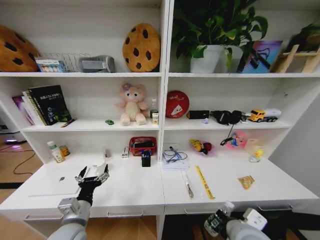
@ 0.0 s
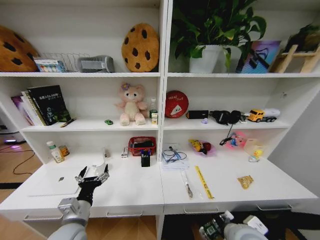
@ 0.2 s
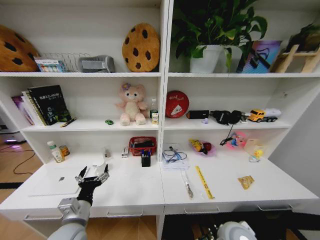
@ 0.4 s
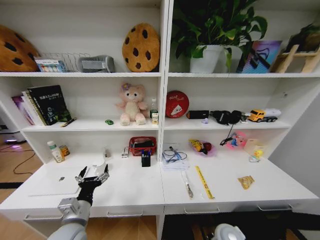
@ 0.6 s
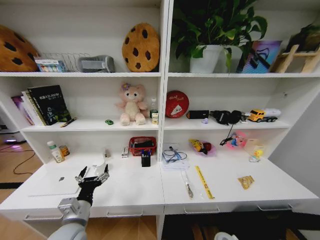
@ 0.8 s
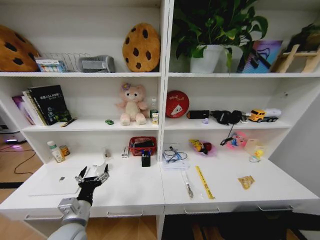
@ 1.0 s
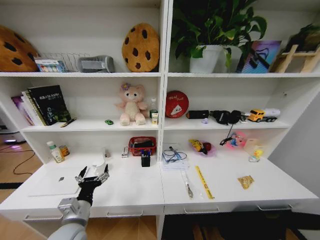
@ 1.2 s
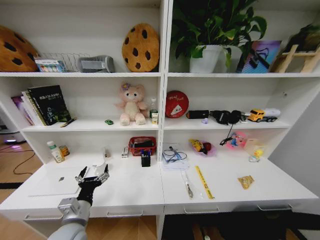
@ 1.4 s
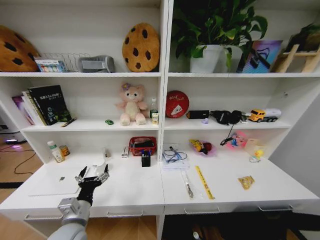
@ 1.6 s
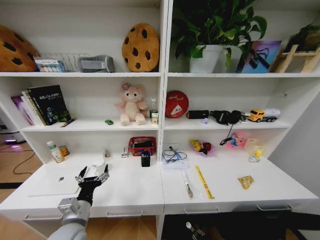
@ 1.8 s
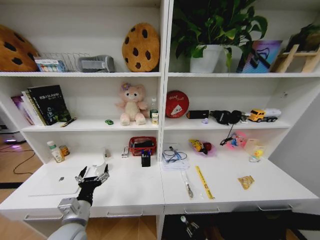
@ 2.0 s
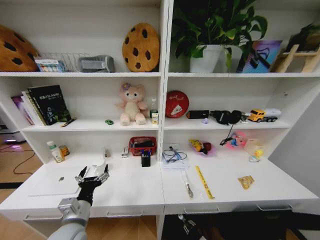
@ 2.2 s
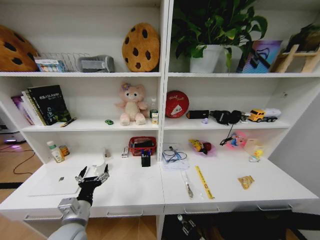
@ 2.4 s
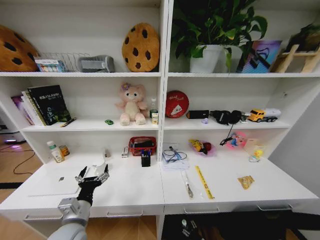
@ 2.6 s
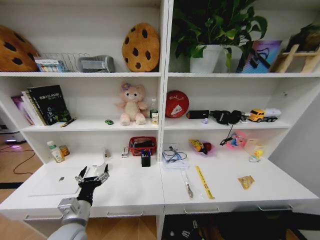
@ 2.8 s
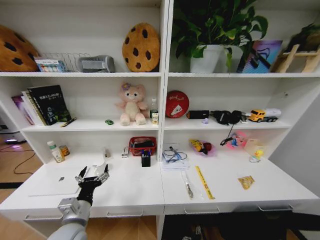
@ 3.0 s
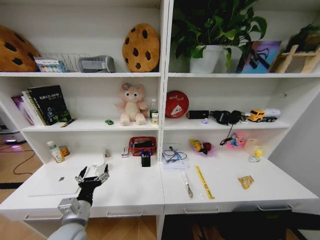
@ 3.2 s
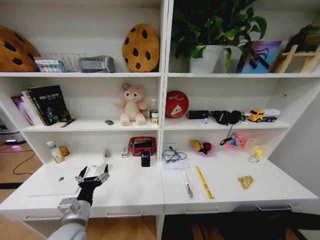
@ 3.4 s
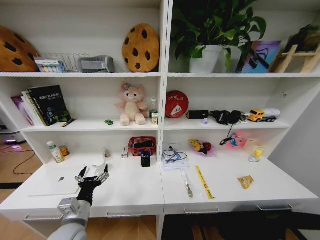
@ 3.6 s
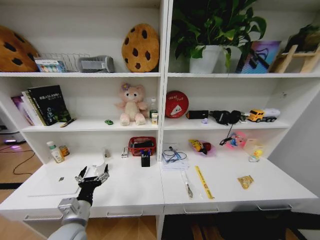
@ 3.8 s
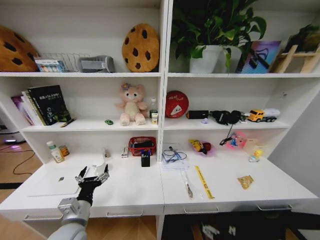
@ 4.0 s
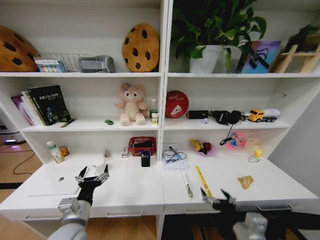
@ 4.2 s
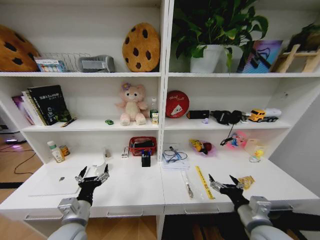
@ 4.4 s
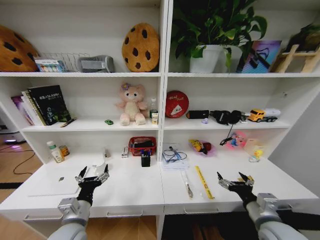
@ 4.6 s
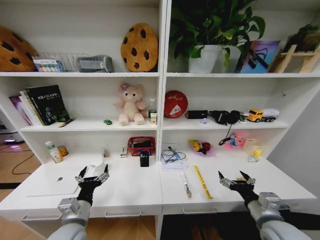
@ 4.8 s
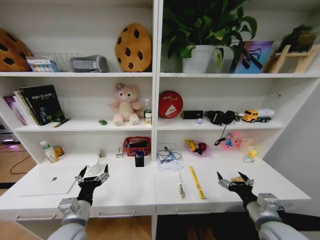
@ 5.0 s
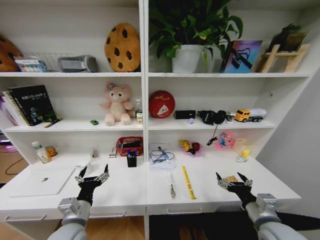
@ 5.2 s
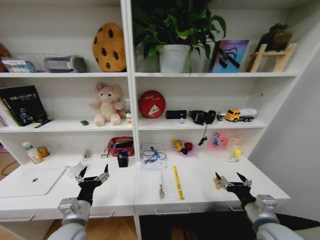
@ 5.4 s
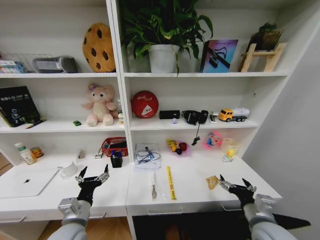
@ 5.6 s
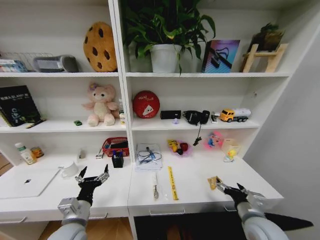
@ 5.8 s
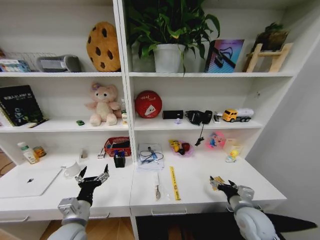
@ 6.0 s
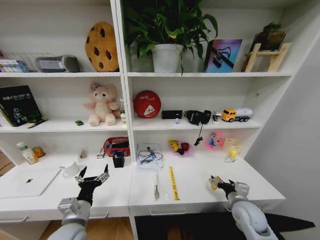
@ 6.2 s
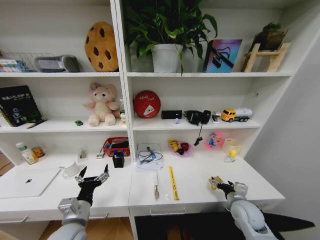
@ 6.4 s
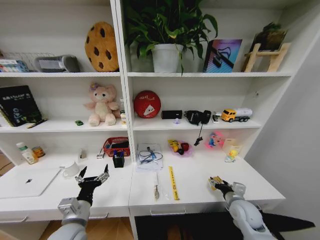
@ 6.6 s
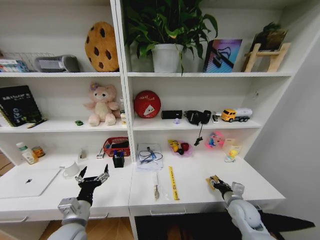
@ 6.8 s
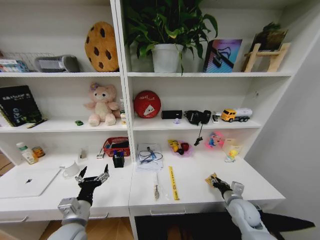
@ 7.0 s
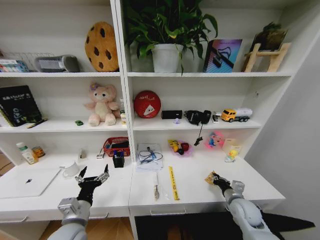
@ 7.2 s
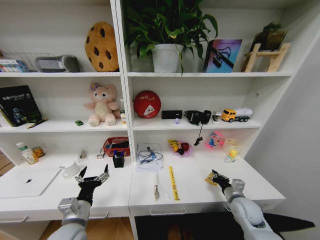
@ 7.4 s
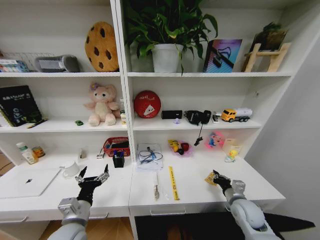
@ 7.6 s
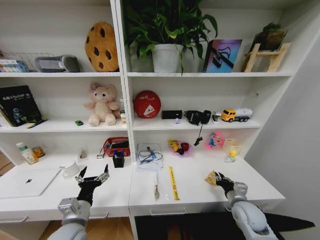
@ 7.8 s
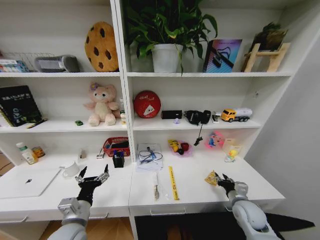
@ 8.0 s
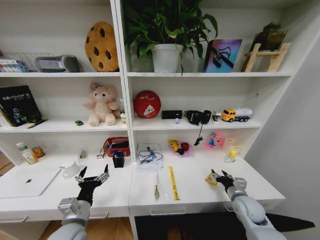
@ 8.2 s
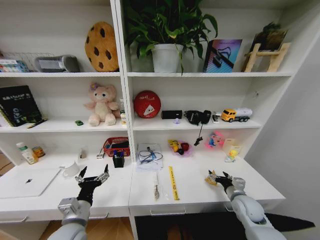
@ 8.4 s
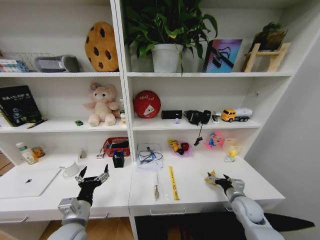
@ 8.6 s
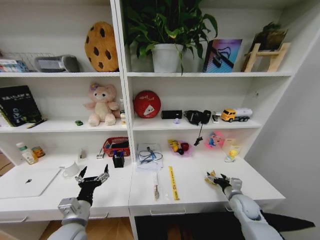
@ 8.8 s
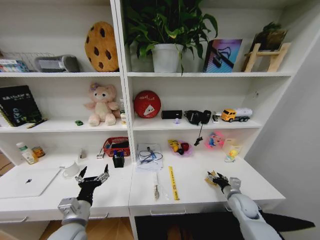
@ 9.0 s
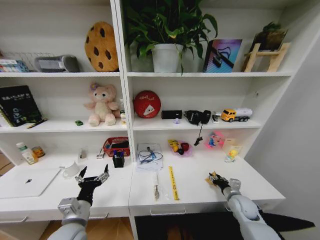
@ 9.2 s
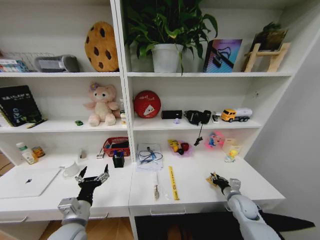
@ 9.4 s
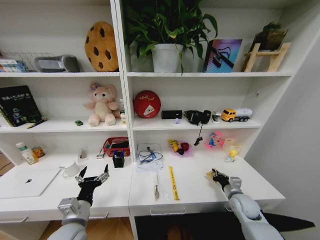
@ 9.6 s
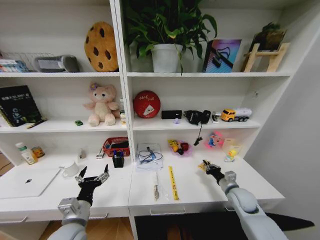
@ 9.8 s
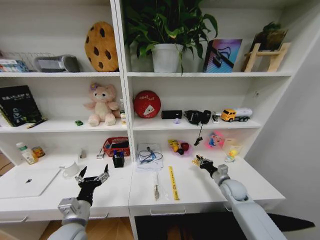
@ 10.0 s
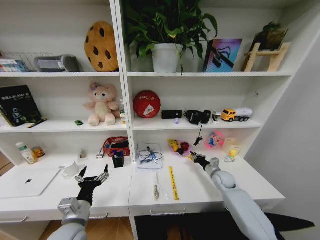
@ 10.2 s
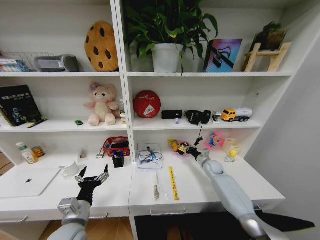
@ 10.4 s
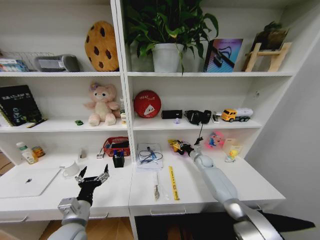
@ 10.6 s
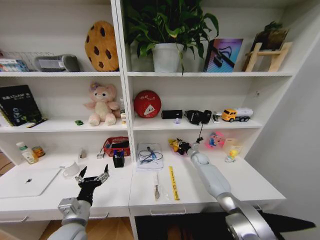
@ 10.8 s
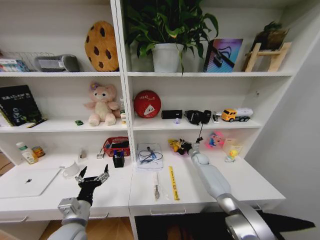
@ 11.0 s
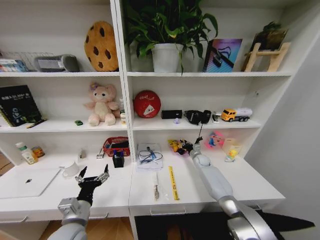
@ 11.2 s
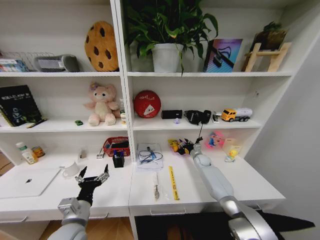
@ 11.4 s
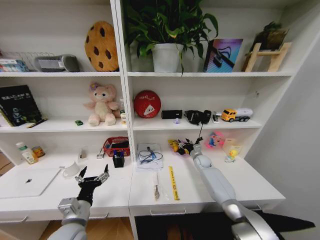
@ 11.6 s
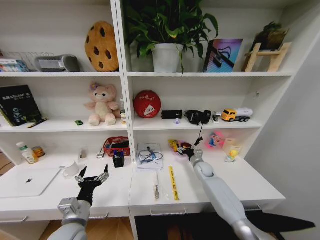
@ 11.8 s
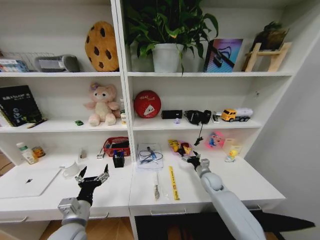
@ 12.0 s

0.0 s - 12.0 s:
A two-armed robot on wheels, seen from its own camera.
Task of the whole recording: Organize the objects on the table.
0.0 s - 1.6 s: The right gripper goes some 50 cm downward.
3.0 s - 4.4 s: The right gripper shifts approximately 40 cm upward.
4.4 s - 6.0 s: The right gripper is displaced forward and downward by some 10 cm.
6.0 s - 7.6 s: The right gripper shifts by about 5 cm, and closes its fingers.
7.6 s - 9.0 s: The right gripper shifts by some 5 cm, and opens up.
9.0 s - 10.4 s: The right gripper is displaced forward by some 20 cm, and closes its fingers.
10.4 s - 12.0 s: The right gripper shifts approximately 10 cm backward, and opens up.

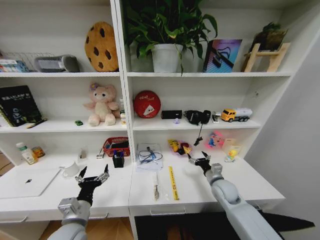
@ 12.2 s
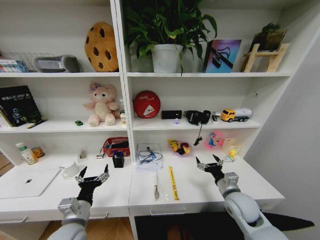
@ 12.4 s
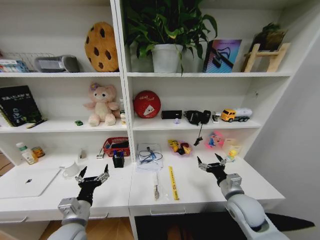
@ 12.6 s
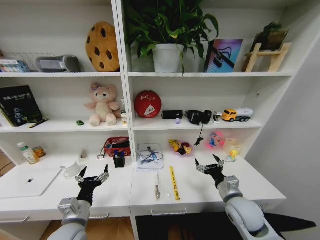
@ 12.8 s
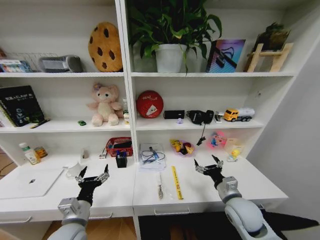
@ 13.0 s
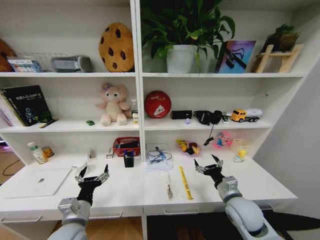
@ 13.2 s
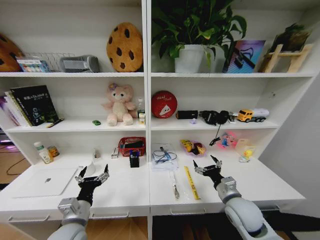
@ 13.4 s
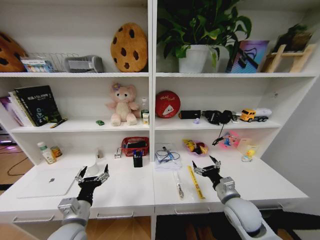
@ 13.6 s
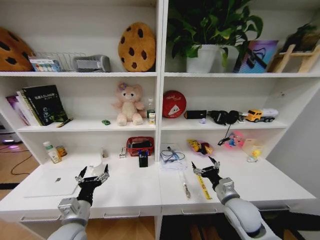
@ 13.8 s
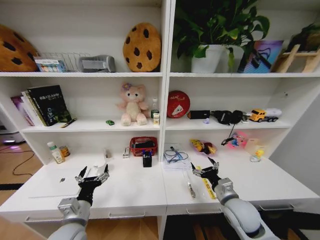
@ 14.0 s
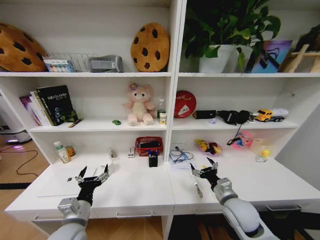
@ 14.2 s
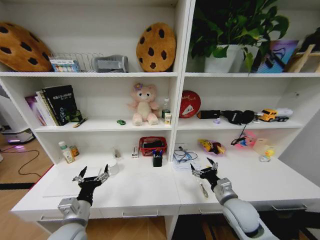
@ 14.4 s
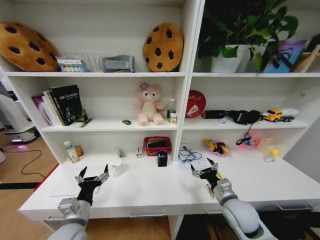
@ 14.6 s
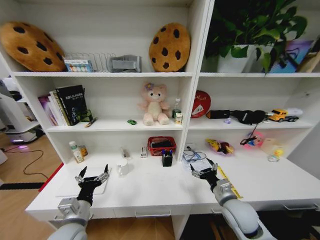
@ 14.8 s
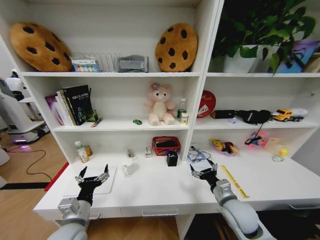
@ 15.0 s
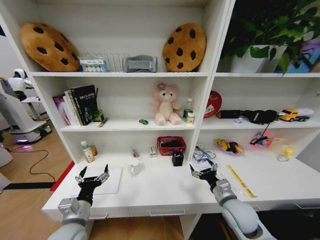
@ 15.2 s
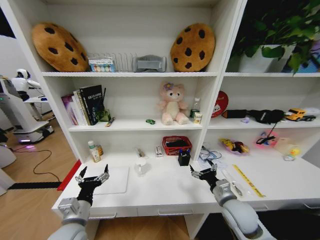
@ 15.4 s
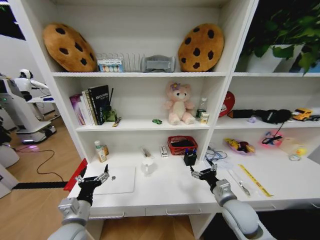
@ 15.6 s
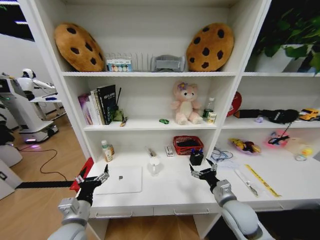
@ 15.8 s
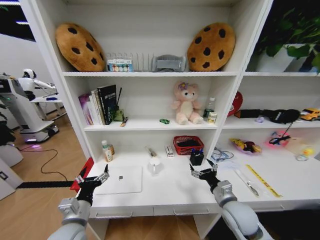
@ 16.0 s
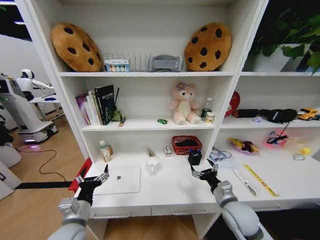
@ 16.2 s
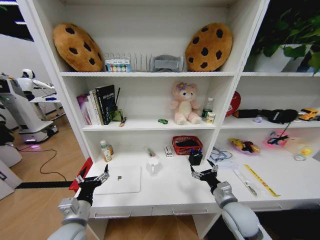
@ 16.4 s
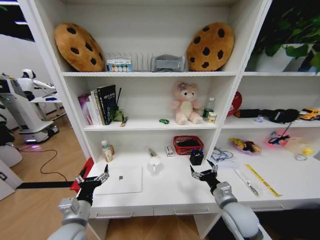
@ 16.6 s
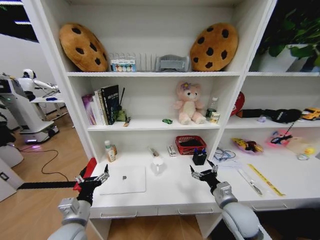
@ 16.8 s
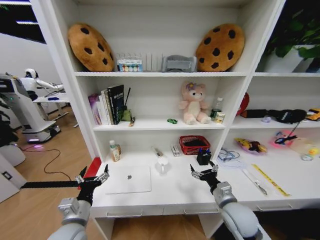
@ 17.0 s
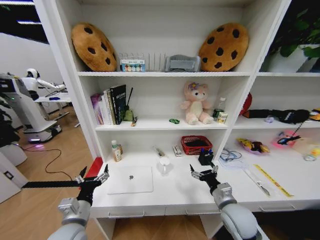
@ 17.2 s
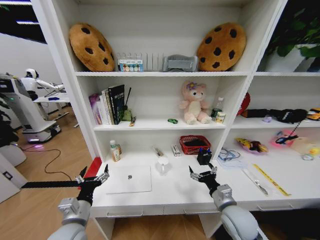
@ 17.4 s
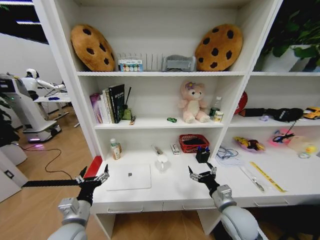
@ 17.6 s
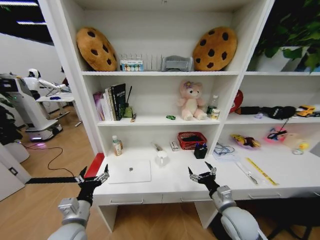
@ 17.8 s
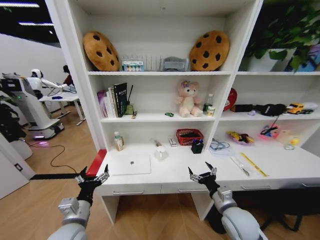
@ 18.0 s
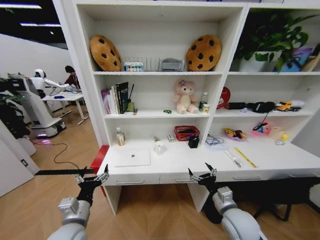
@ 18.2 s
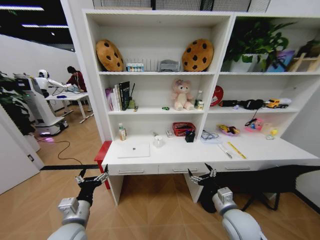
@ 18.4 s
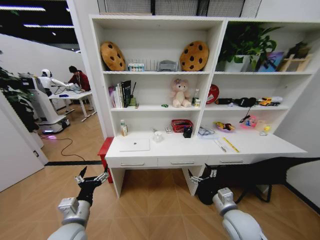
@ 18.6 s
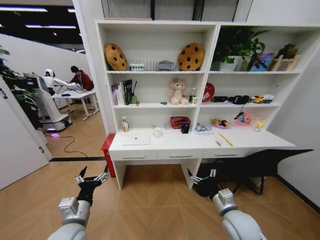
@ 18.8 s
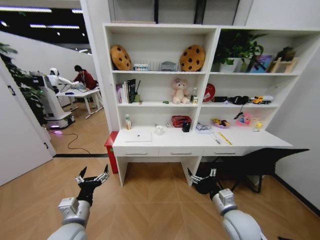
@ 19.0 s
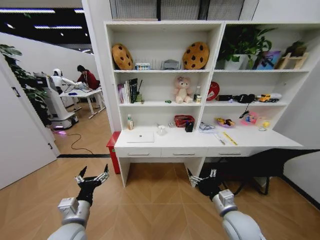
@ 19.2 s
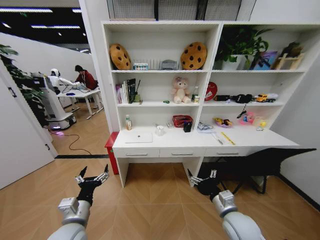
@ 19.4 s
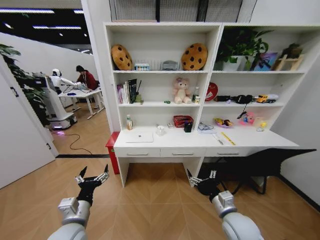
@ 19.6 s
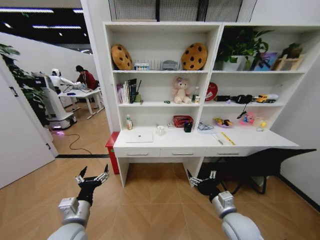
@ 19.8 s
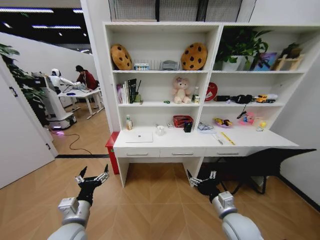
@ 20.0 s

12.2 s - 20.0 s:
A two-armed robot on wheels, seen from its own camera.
Task of the whole recording: Organize the objects on the table.
12.2 s - 13.8 s: The right gripper travels backward by about 10 cm.
